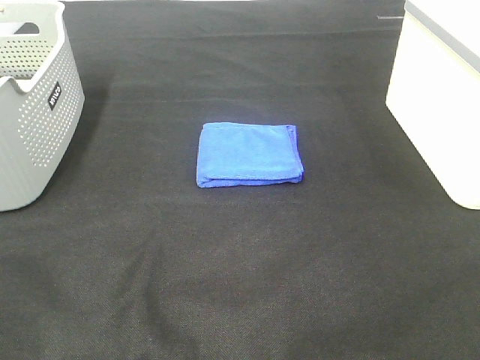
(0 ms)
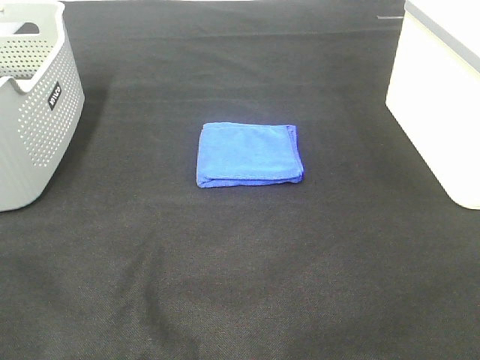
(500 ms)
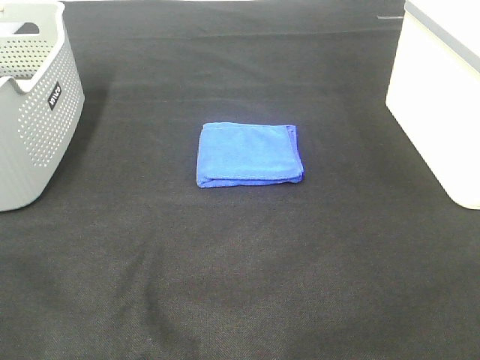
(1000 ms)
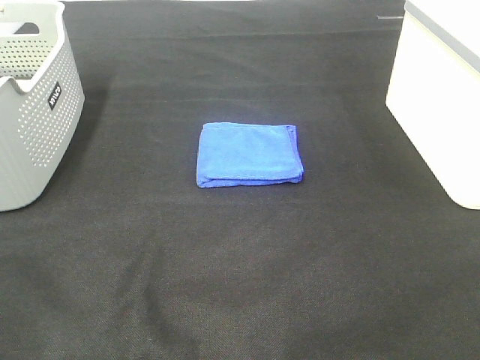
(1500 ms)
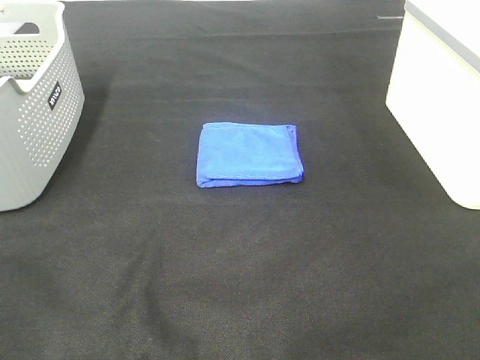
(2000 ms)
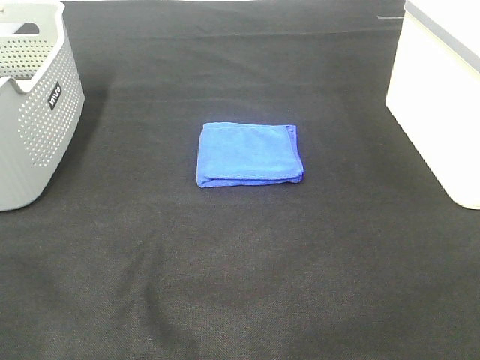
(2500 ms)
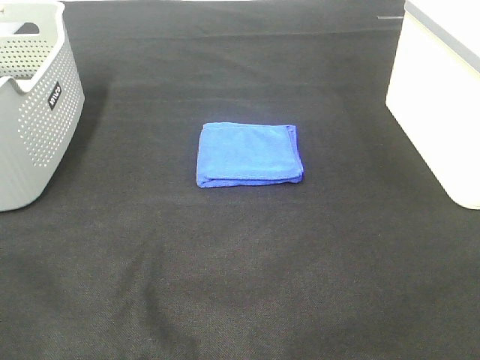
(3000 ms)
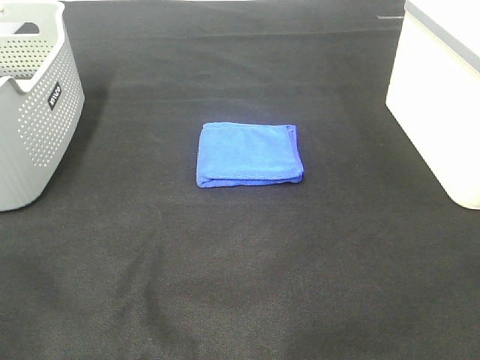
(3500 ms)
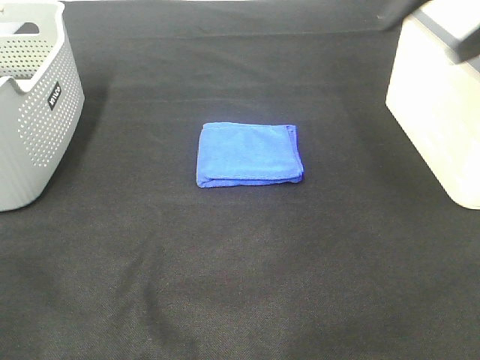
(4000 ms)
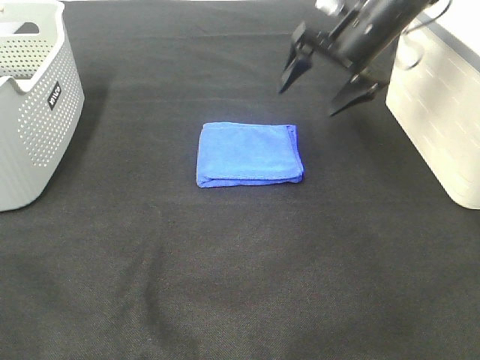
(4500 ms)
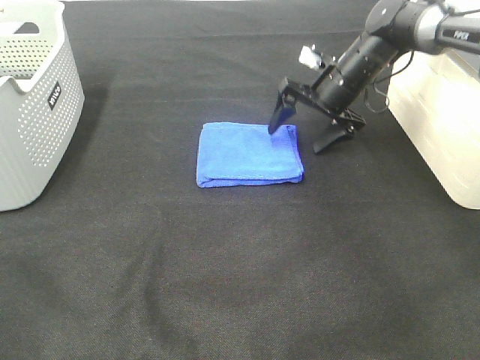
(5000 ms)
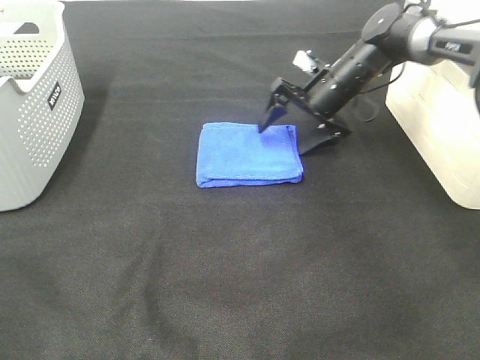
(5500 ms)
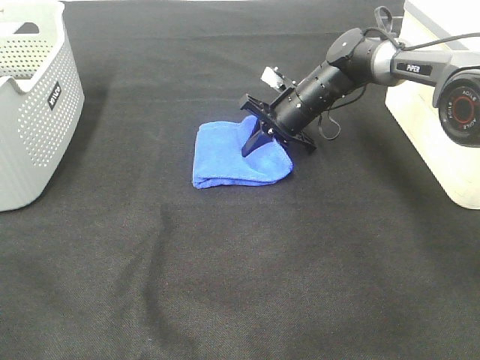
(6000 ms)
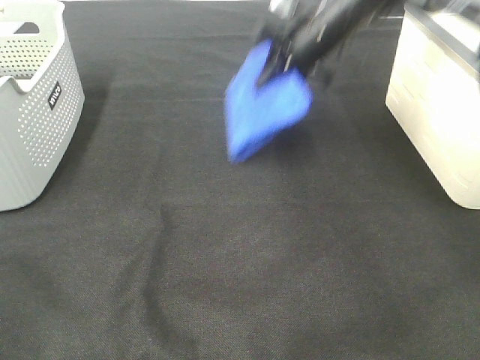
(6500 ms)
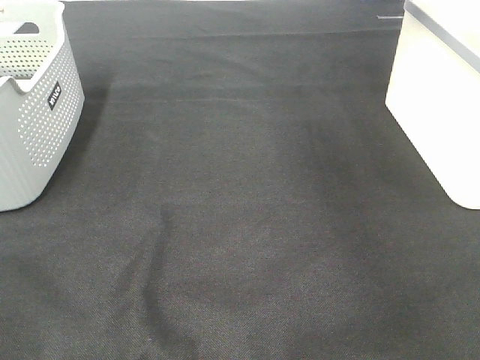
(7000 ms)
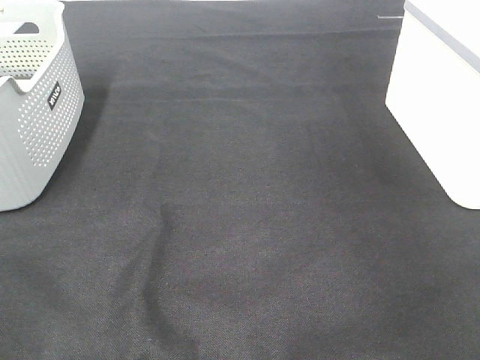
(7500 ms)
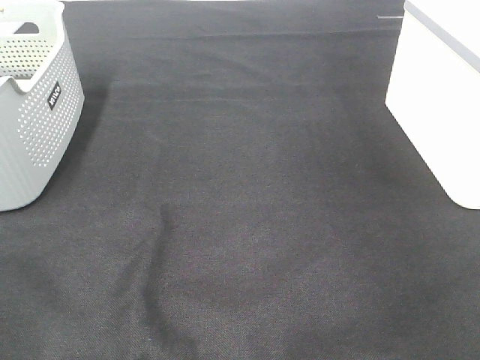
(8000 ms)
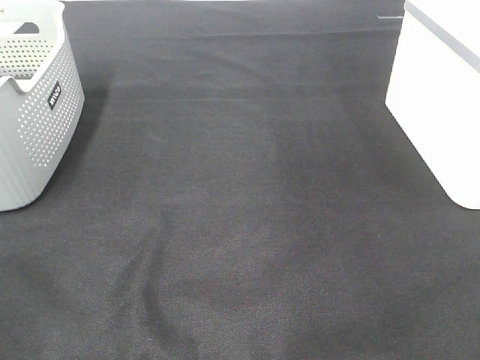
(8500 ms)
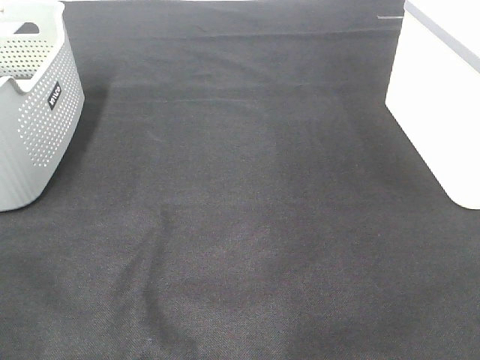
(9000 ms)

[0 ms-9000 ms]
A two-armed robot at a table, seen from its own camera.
Step, 0 ms to 6000 ms: Right hand: grab the folded blue towel.
Step, 6500 ms to 7500 ms: Right hand: place the blue towel in right basket.
0 ms to 2000 ms: Both grippers stay put.
2000 ms to 4500 ms: The right gripper shifts approximately 50 cm forward.
4500 ms to 7000 ms: The right gripper heads upward and to the right, covering some 25 cm, and closes.

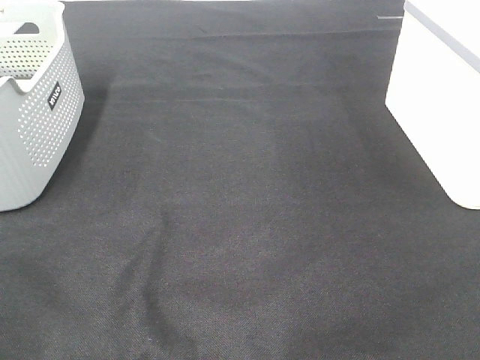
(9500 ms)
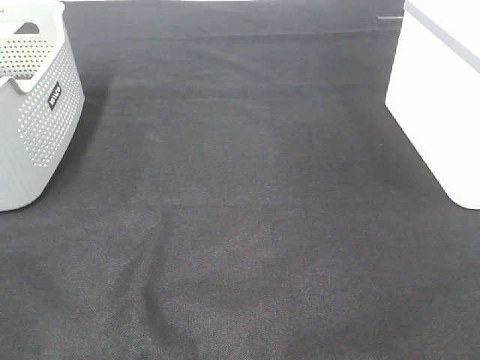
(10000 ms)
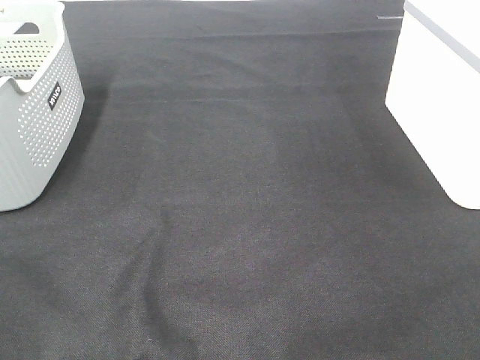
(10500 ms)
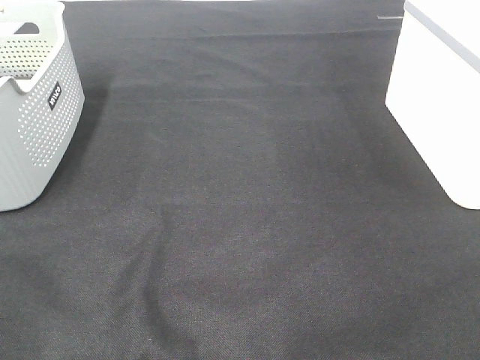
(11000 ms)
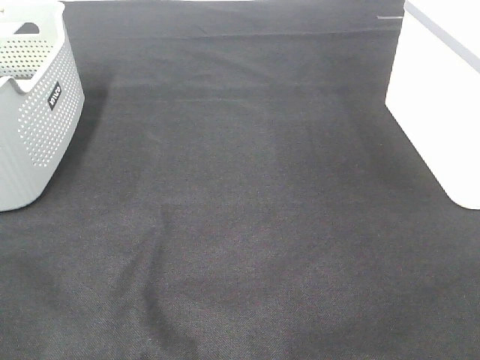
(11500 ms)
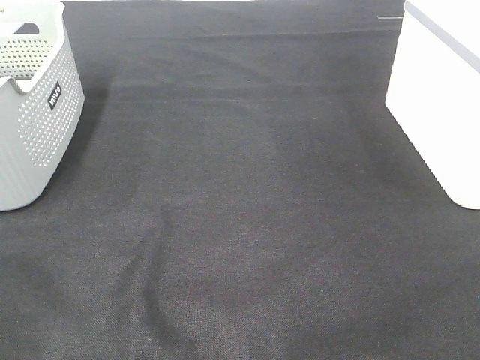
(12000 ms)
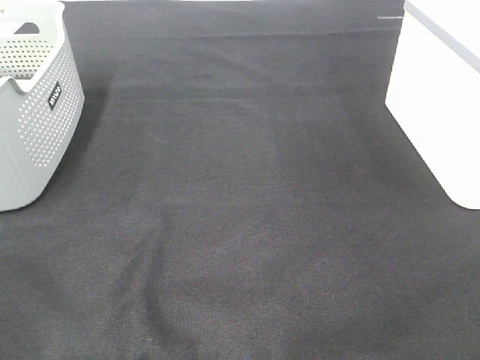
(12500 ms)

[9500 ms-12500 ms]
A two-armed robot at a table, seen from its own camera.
11000 ms to 12500 ms: The two grippers keep their place.

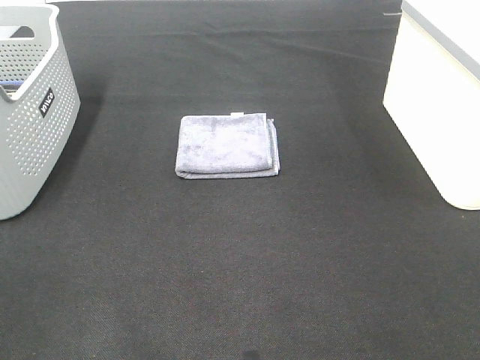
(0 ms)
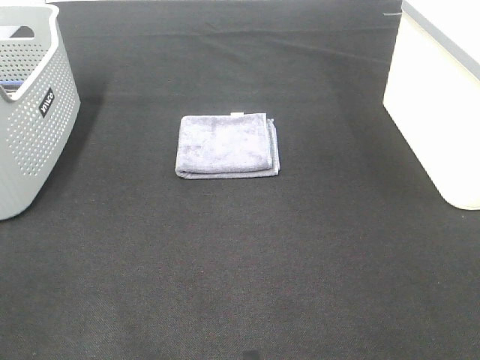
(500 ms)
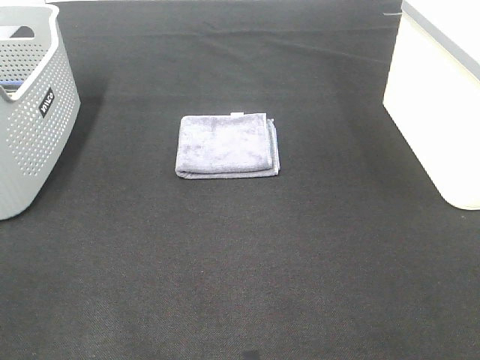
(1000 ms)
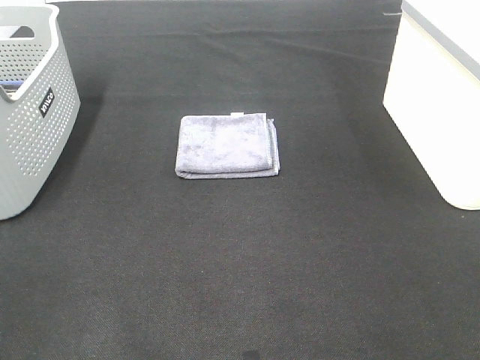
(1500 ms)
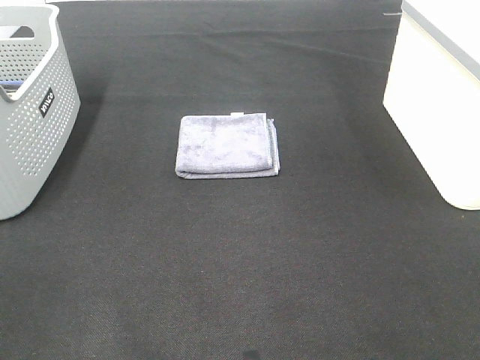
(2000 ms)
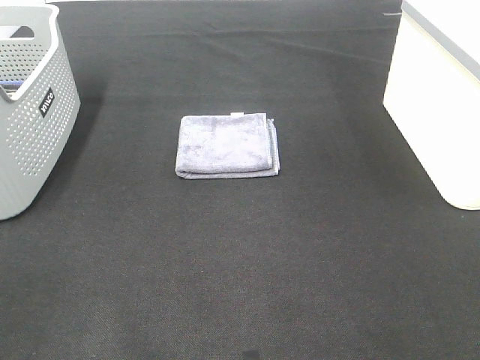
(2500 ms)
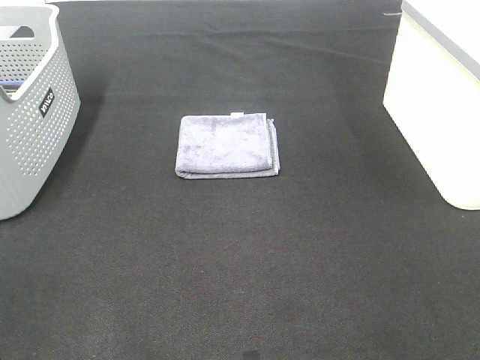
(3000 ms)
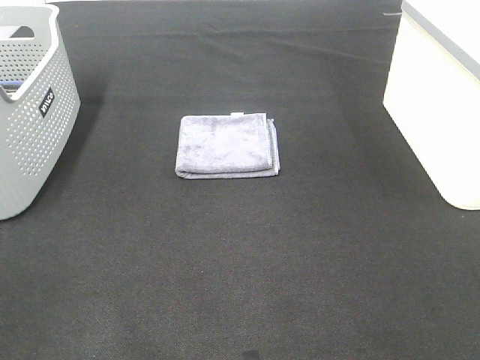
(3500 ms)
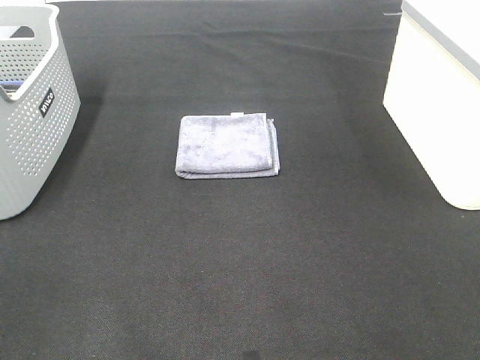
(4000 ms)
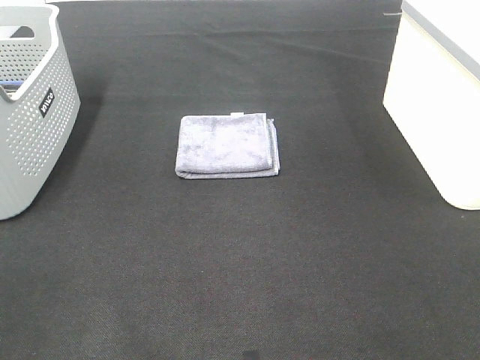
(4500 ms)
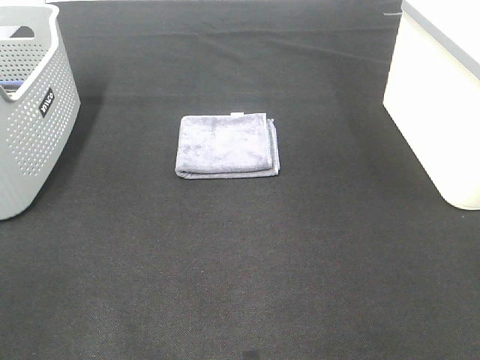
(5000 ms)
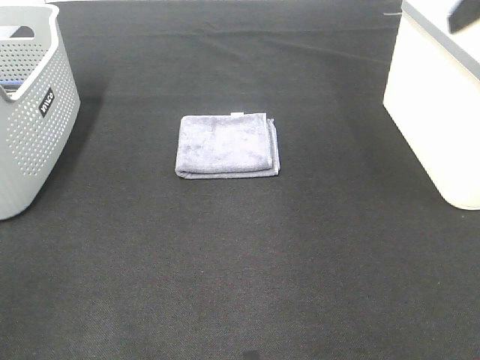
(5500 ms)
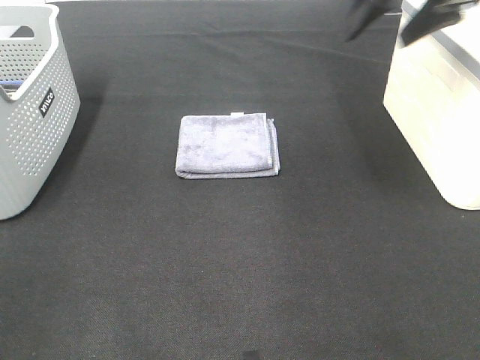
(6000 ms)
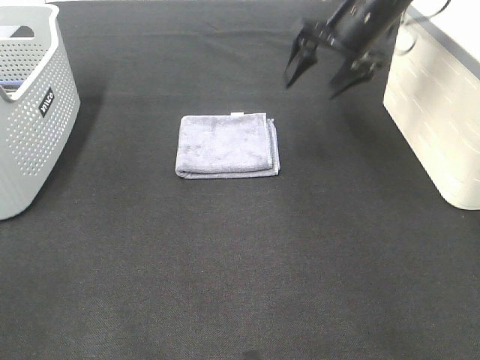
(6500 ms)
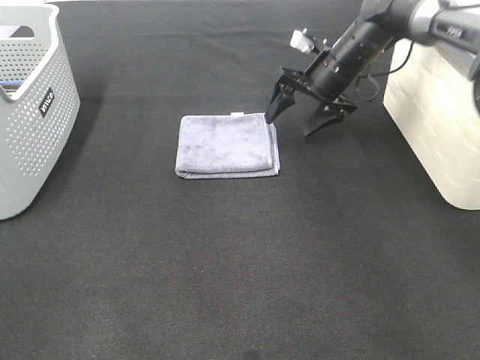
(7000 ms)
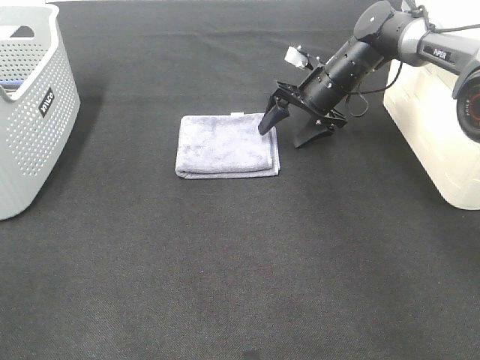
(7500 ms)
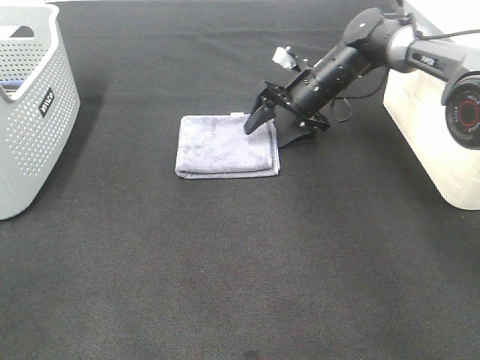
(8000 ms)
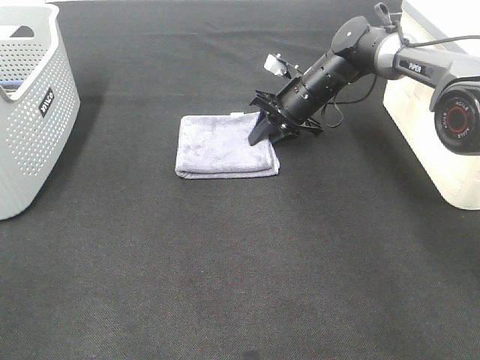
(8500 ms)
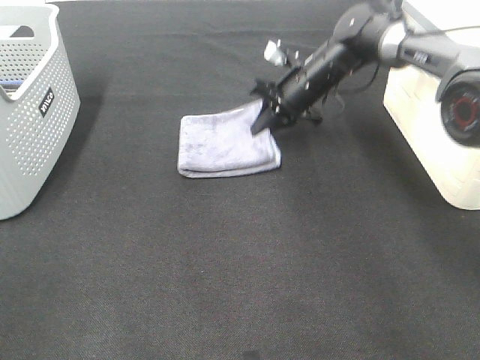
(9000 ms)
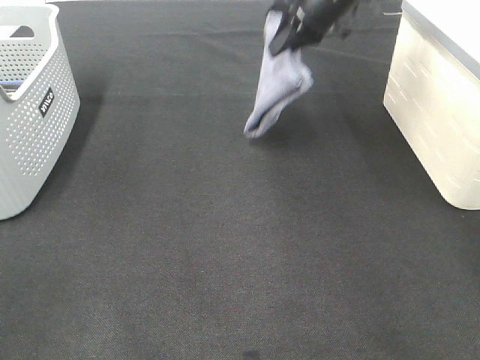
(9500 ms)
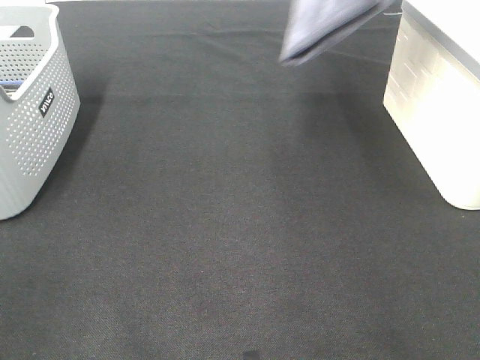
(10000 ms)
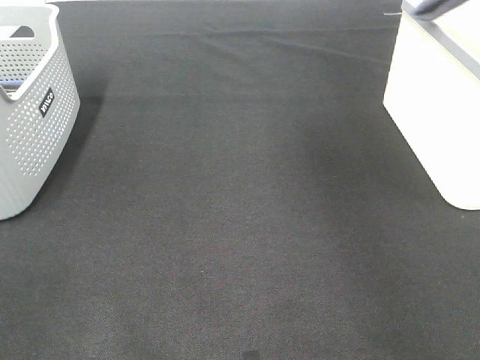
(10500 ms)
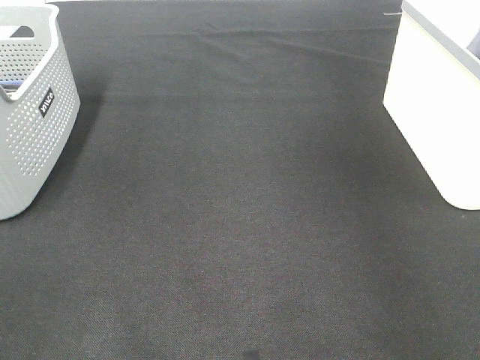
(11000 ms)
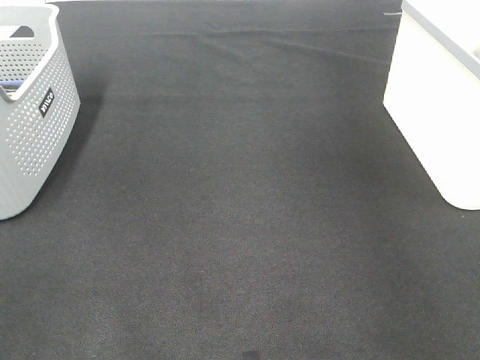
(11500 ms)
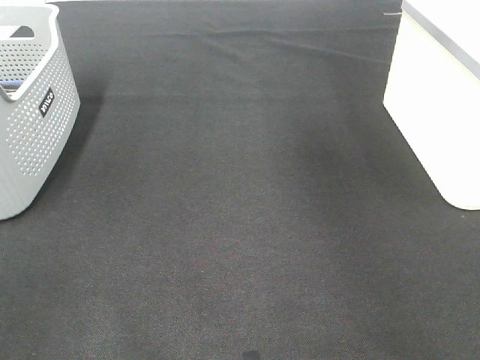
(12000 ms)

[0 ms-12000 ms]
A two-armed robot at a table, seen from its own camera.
Step, 0 ms to 8500 ms: Right hand: grab the folded grey towel.
Step, 9000 ms to 11500 ms: Right hand: place the grey towel in right basket.
0 ms to 4000 ms: The two grippers keep their place.
4000 ms to 6000 ms: The right gripper travels forward by about 40 cm.
6000 ms to 8000 ms: The right gripper heads downward and forward, covering approximately 25 cm.
8000 ms to 10000 ms: The right gripper travels upward by approximately 30 cm, and closes its fingers.
10000 ms to 12000 ms: The right gripper goes roughly 10 cm to the right, and opens its fingers.

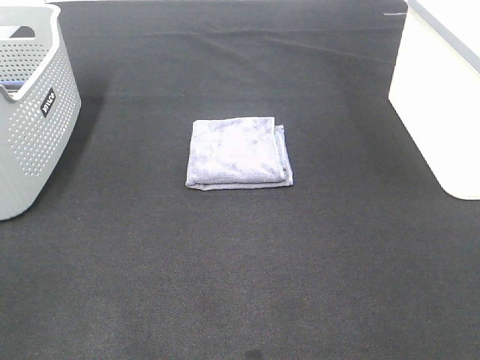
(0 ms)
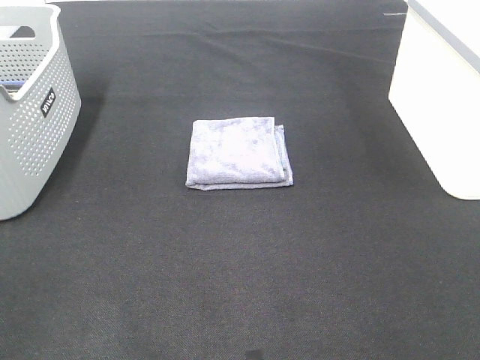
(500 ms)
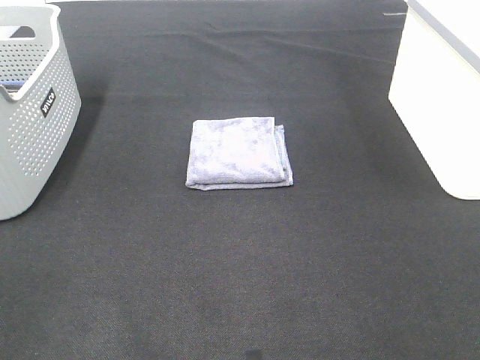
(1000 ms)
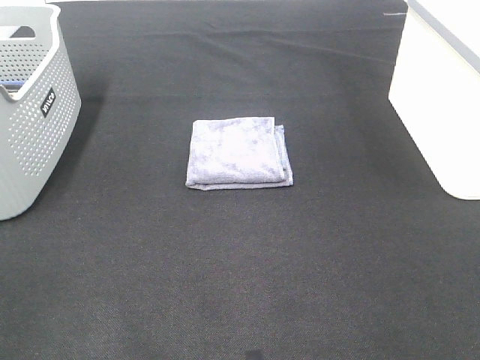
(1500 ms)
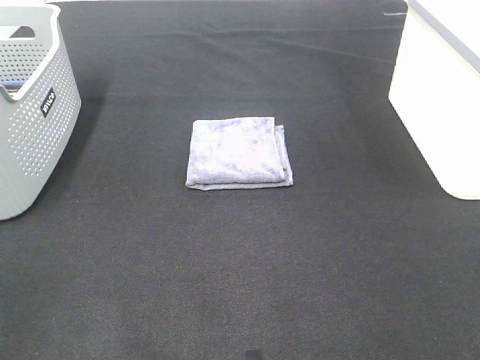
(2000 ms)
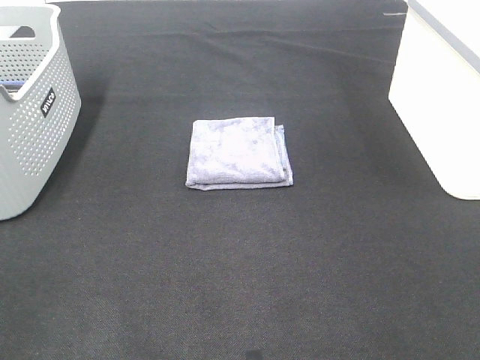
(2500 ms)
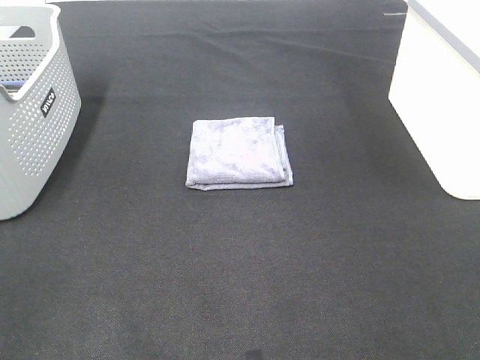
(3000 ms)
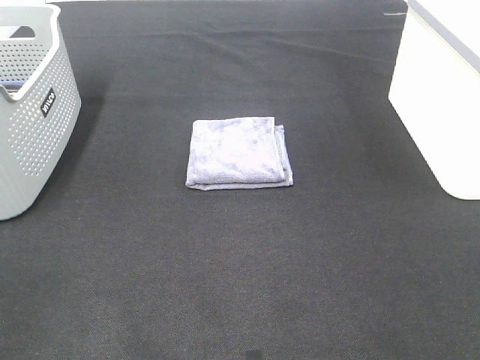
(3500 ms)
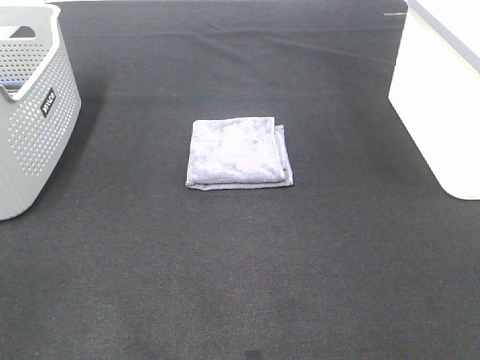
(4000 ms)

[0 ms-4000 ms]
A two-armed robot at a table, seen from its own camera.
0 ms to 4000 ms: Both grippers stay put.
